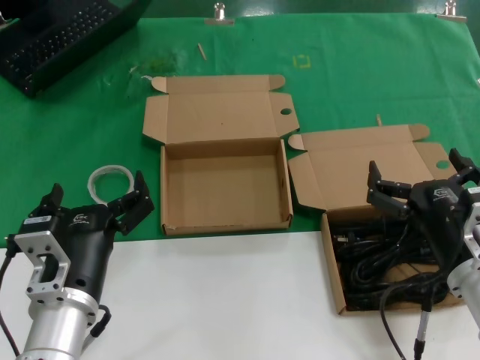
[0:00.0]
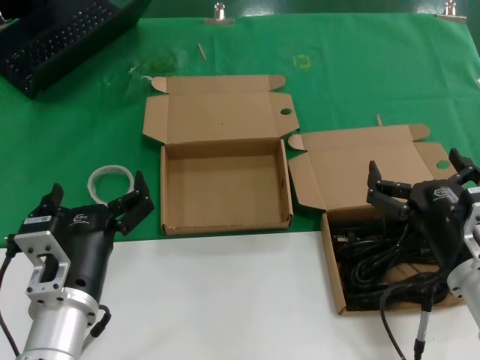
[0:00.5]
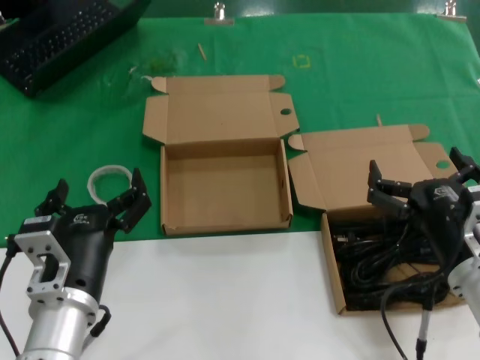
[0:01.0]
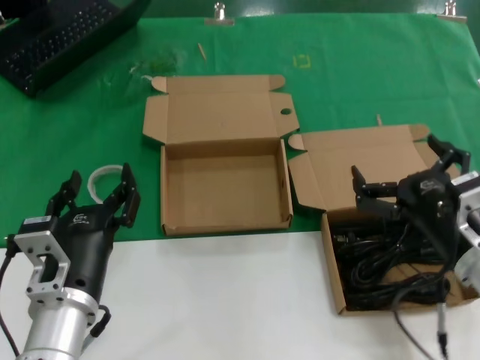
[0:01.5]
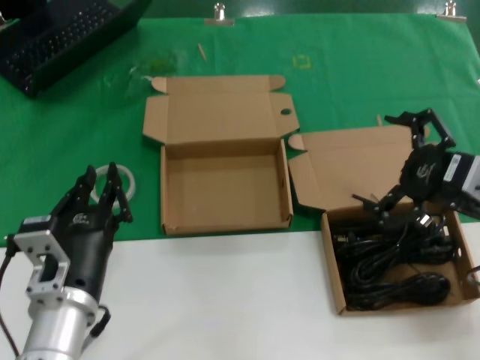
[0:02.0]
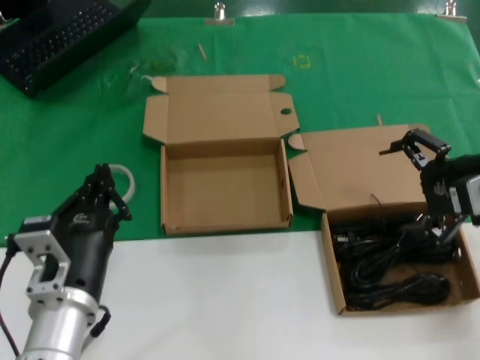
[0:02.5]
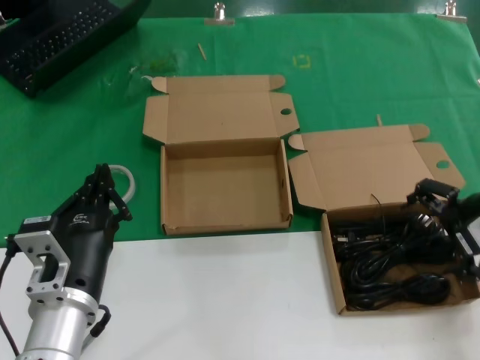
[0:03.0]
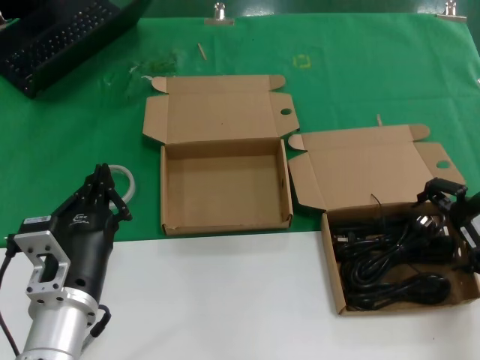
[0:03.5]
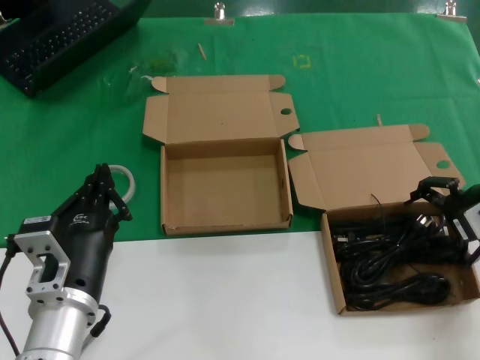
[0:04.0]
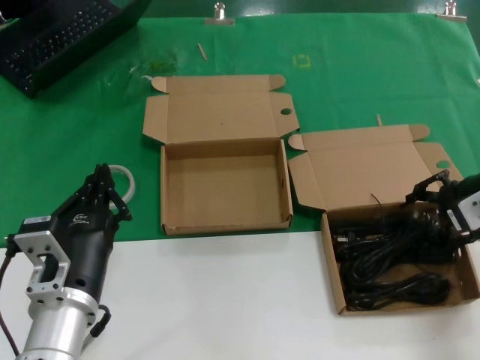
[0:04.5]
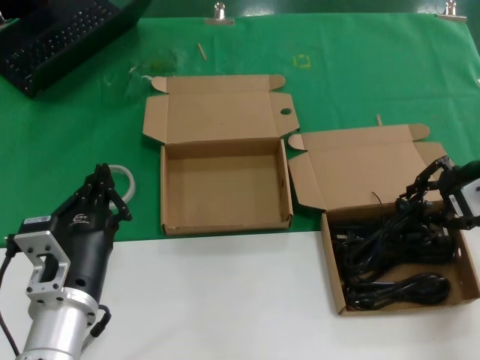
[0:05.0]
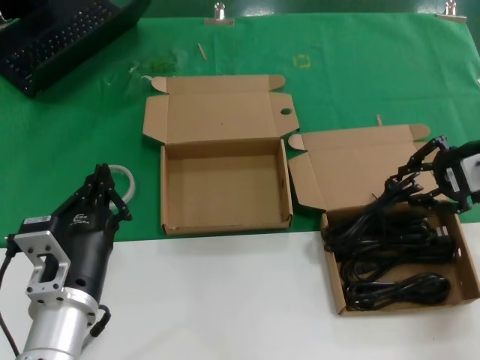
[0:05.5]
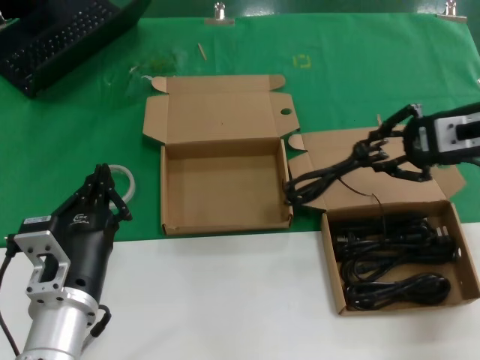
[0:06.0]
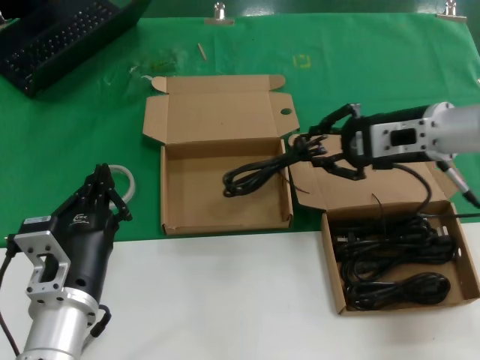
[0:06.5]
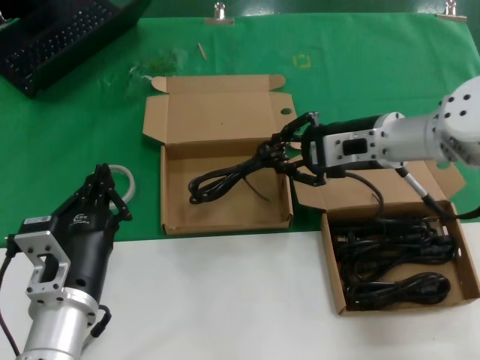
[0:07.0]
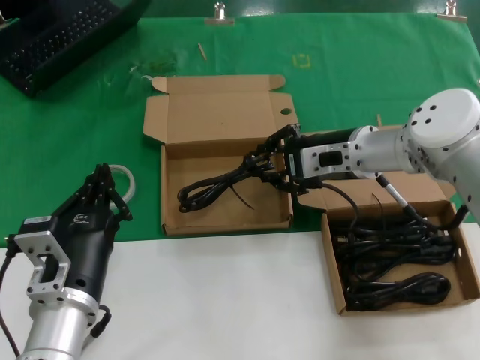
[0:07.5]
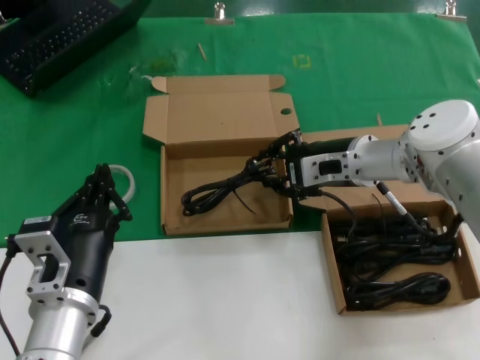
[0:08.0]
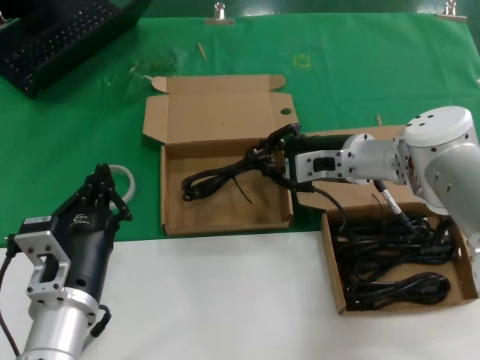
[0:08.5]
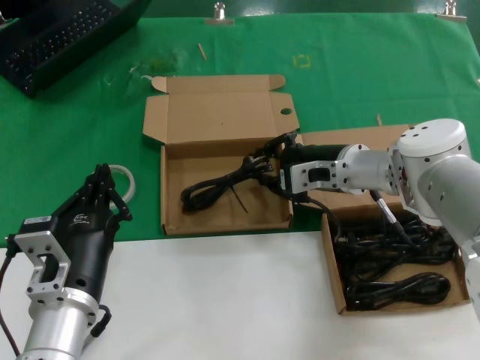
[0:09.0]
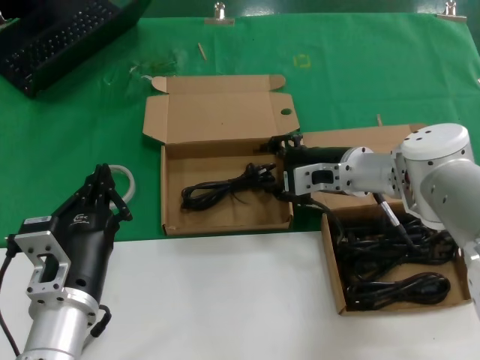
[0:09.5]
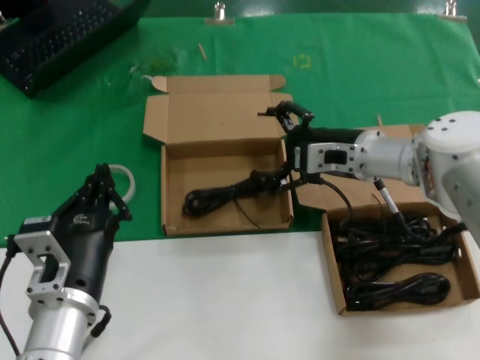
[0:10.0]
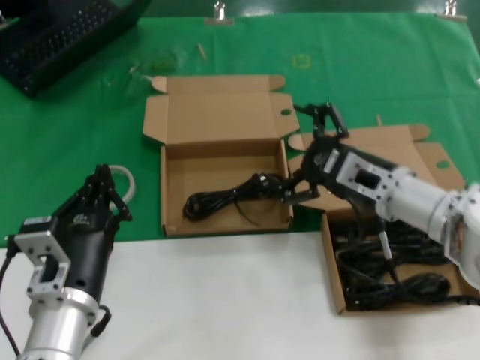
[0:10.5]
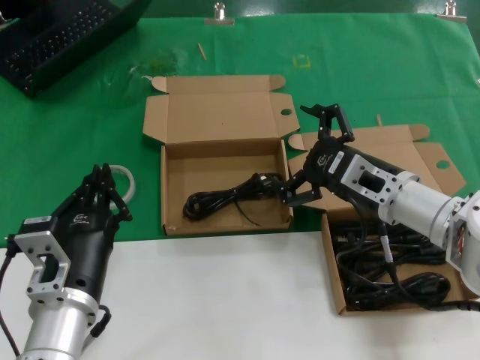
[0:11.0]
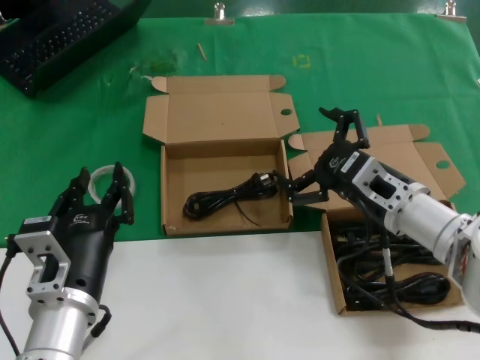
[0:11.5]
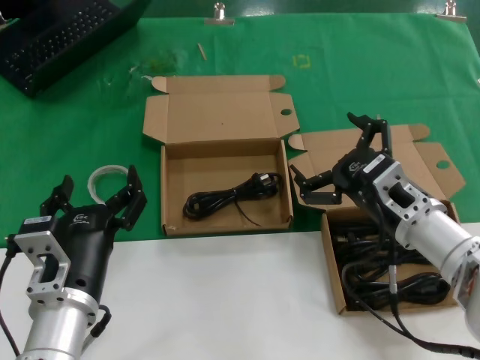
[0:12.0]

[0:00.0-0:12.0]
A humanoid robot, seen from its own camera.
Task of the whole recording: take the parts from the box containing them and put them into an empty box.
Step, 0:00.0 to 0:04.5: Grasp the data cable.
Step, 0:05.0 to 0:09.0: Place the data cable in the another box.
0:00.0 to 0:02.0: The right hand shifts some 15 cm upward, to the right and forward.
0:02.0 to 0:04.0: The right hand moves forward, approximately 10 cm.
0:04.0 to 0:06.0: The right hand travels upward by some 5 cm.
0:06.0 to 0:08.0: The right hand is displaced to the left and downward by roughly 20 cm.
0:08.0 to 0:10.0: The hands move only a little.
0:10.0 to 0:12.0: The right hand moves backward, roughly 15 cm.

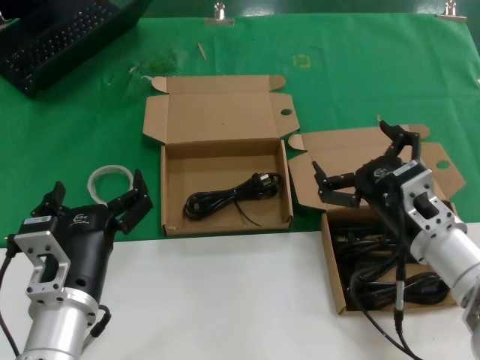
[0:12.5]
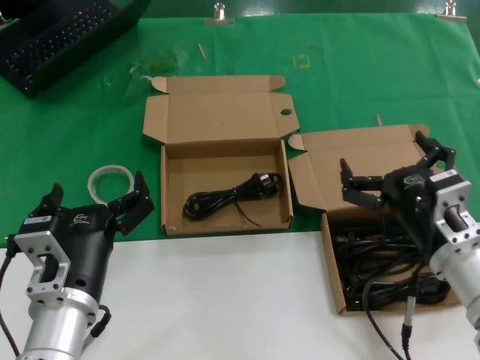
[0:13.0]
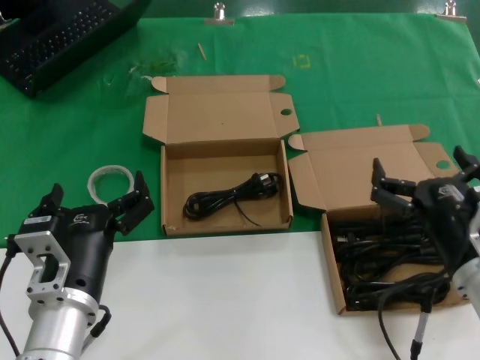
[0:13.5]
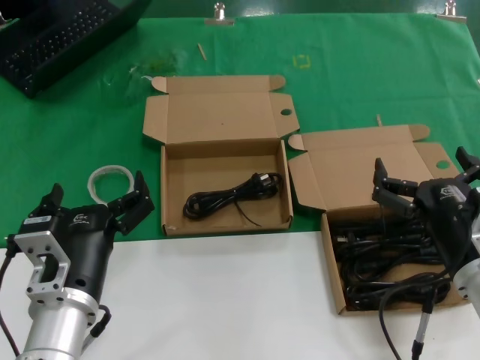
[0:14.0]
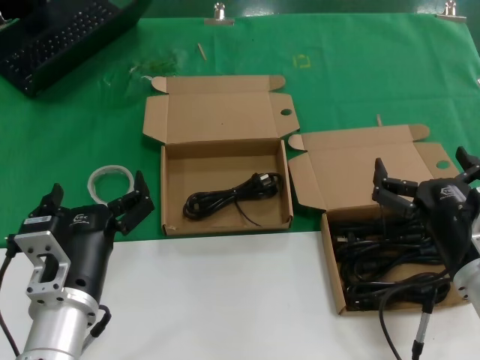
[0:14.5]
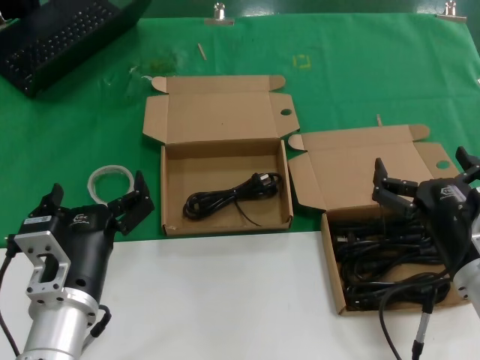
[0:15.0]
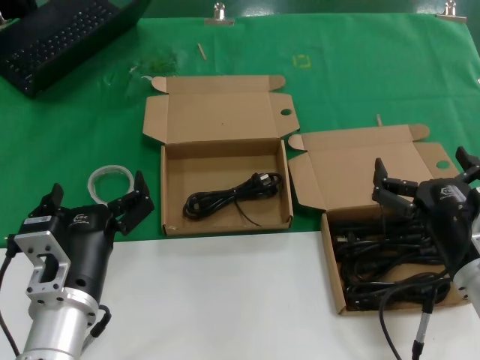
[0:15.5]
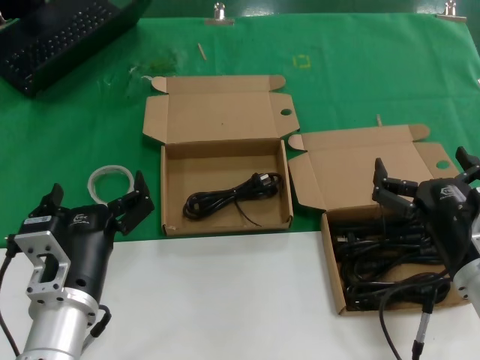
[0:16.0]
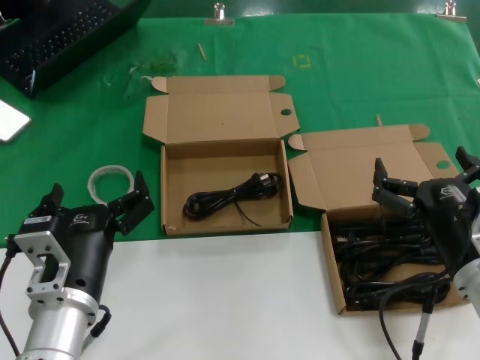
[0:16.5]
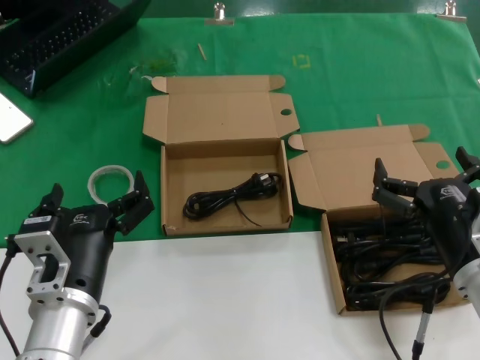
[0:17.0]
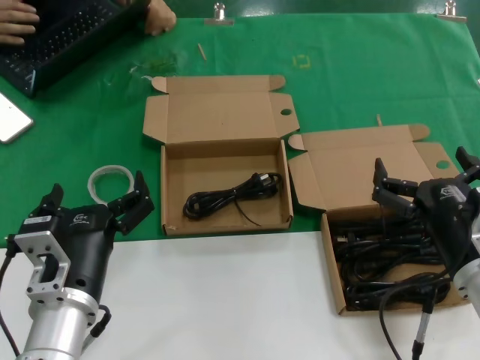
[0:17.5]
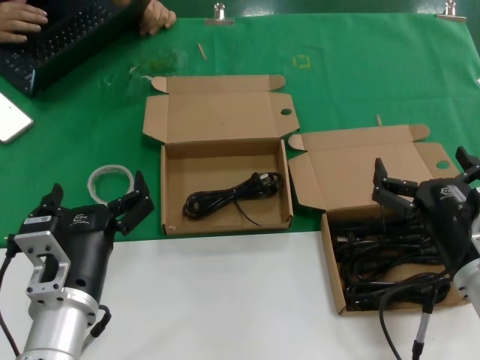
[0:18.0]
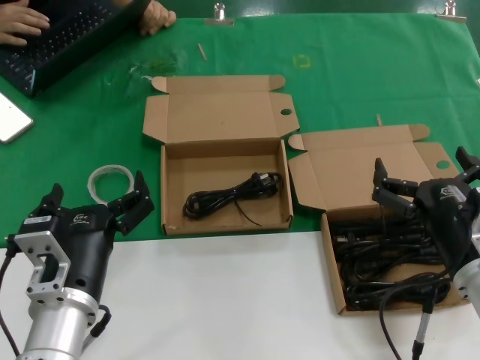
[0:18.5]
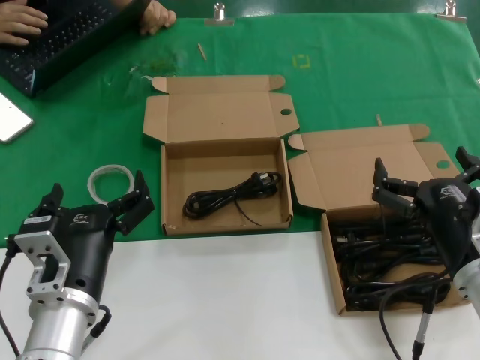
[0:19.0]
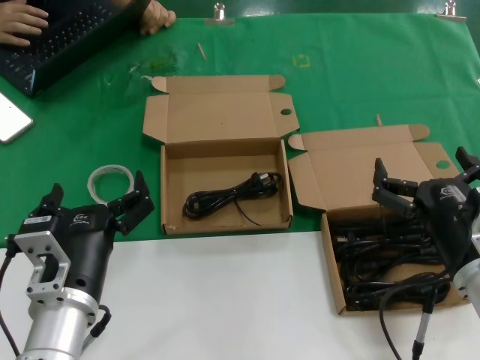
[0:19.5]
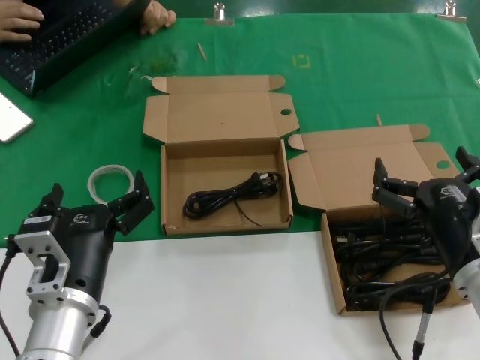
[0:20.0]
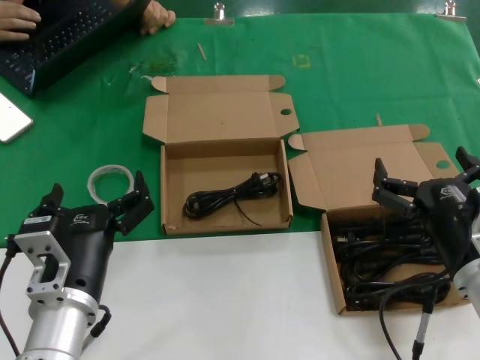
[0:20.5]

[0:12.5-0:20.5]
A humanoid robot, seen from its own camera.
Task of the whole recording: take the parts from the box containing them and put them into an empty box.
0:12.5 to 0:14.5: The right hand shifts about 5 cm backward.
0:14.5 to 0:20.5: The two hands keep their place.
